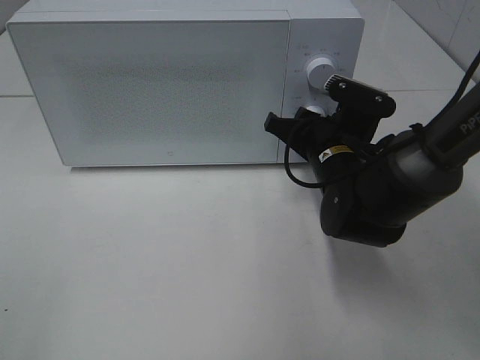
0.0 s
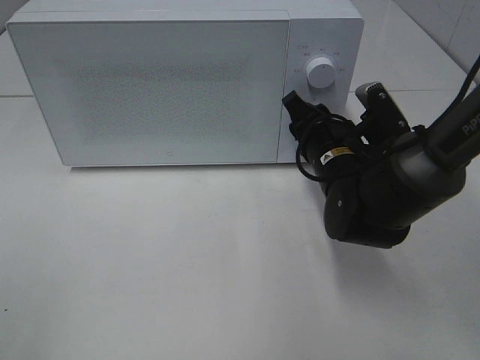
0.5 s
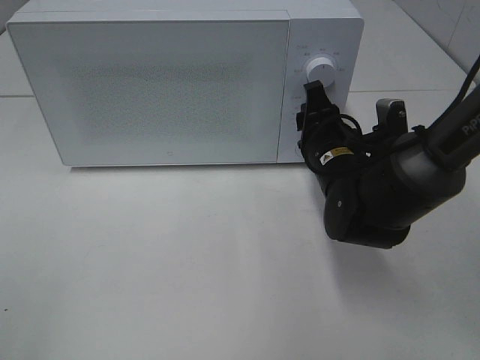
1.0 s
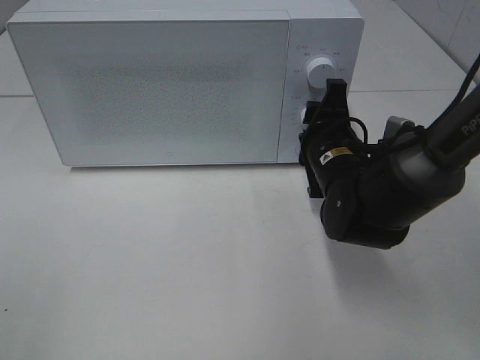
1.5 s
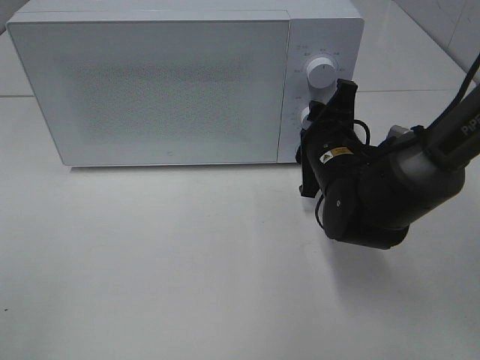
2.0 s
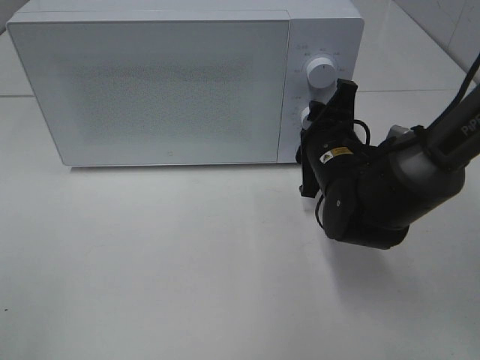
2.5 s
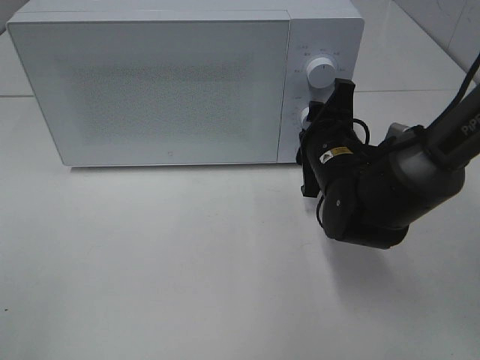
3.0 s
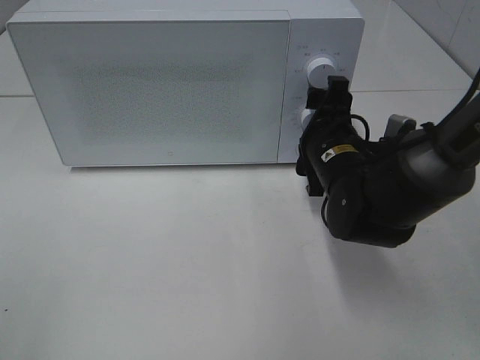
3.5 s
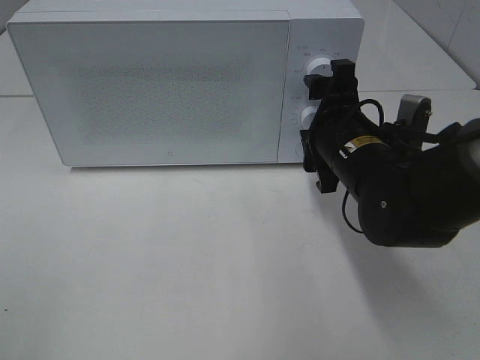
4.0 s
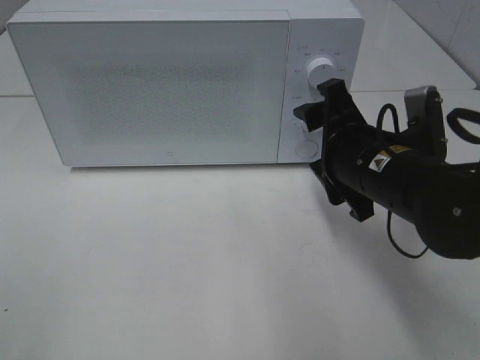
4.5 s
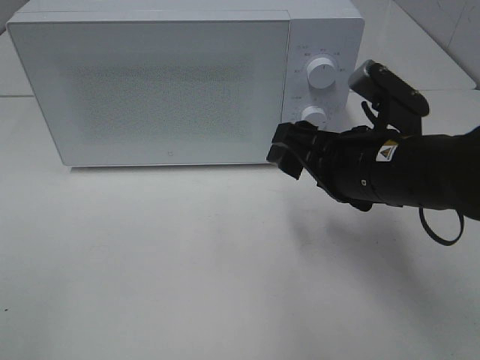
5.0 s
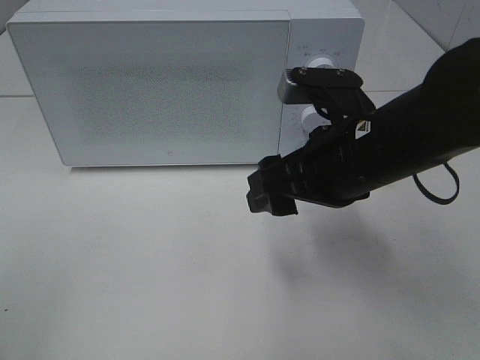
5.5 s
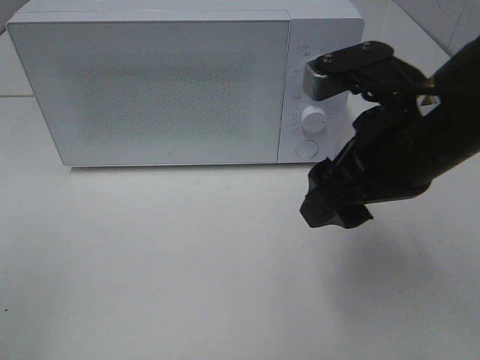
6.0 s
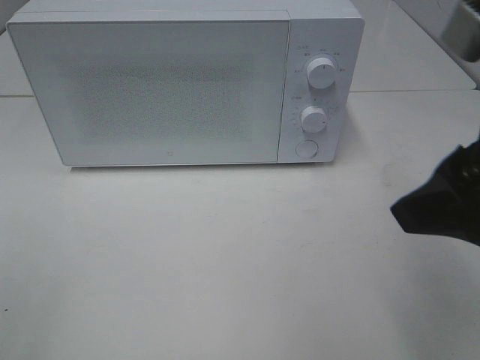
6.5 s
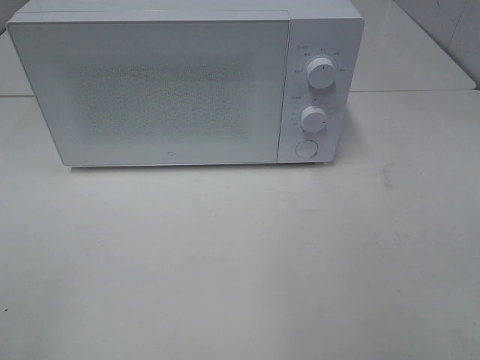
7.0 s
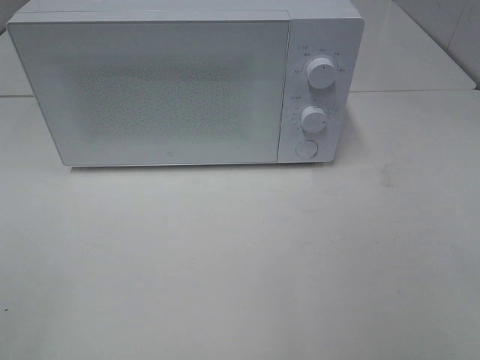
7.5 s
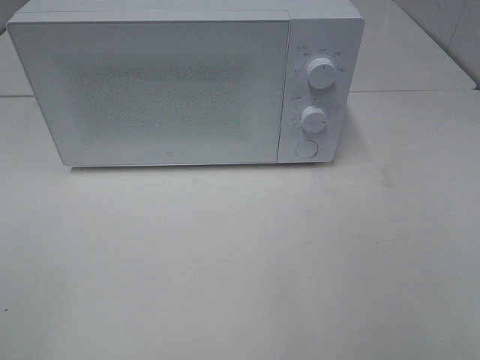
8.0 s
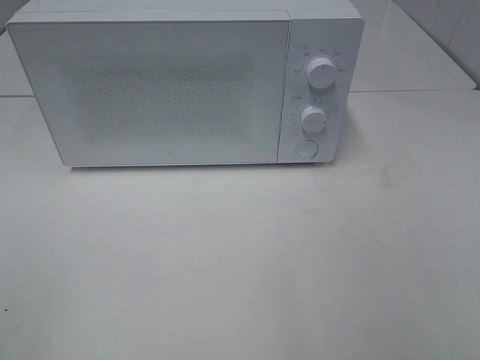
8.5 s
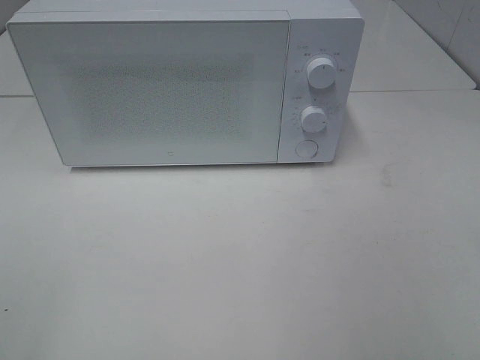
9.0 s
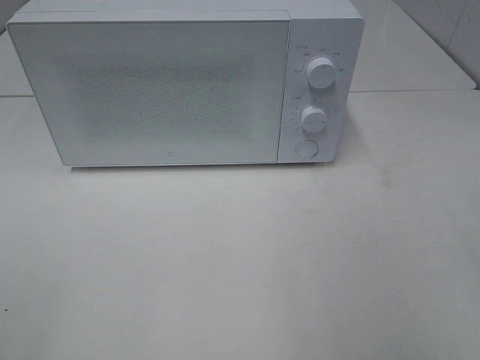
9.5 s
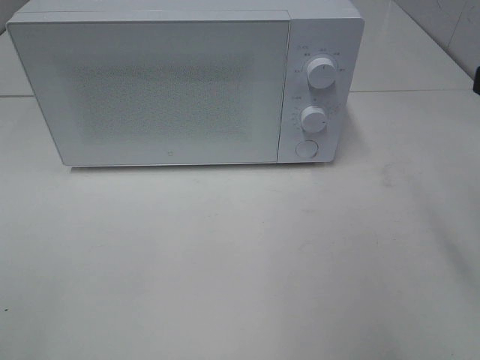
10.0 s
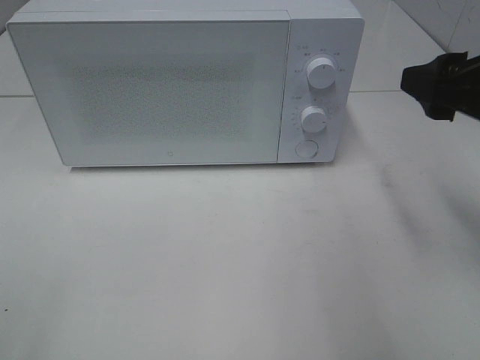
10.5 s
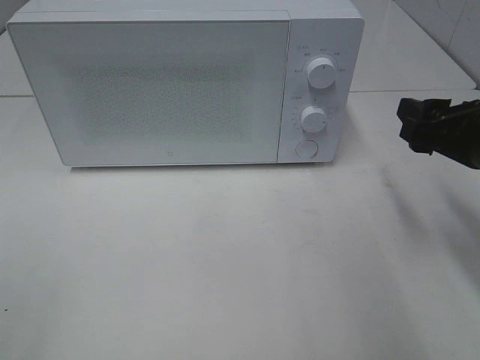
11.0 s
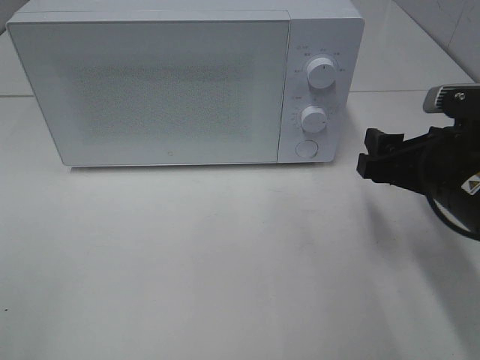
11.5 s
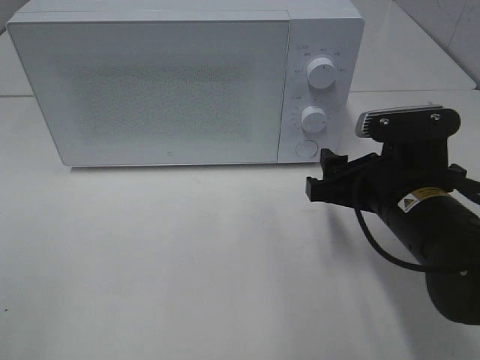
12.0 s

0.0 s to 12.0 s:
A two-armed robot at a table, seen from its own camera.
Task of the whole recording: Heat the burger.
Step, 0.0 to 3.5 s: Right hand: twist timer button.
2.0 to 4.0 s: The right gripper opens.
4.0 to 6.0 s: The right gripper heads upward and backward, covering roughly 15 cm.
6.0 to 8.0 s: The right gripper goes roughly 25 cm backward and to the right.
10.0 to 12.0 s: The right gripper travels downward, to the left and forward by roughly 20 cm.

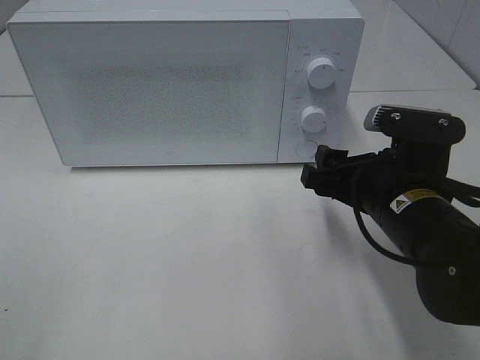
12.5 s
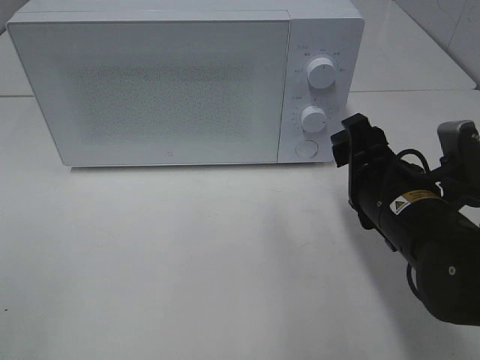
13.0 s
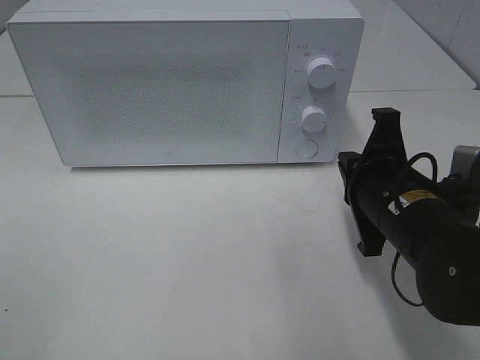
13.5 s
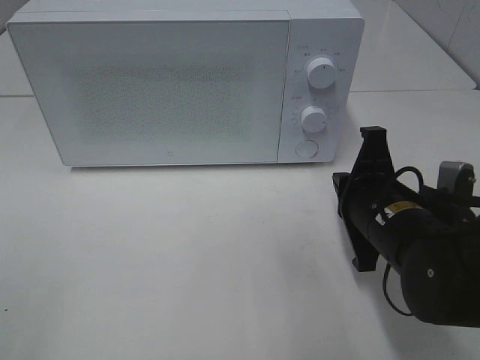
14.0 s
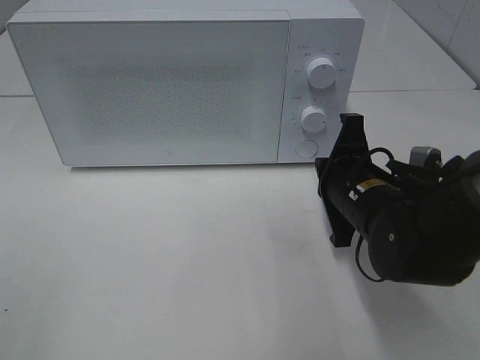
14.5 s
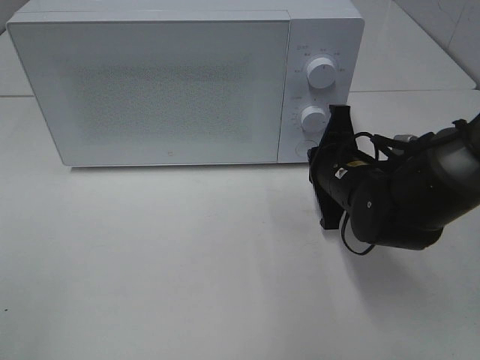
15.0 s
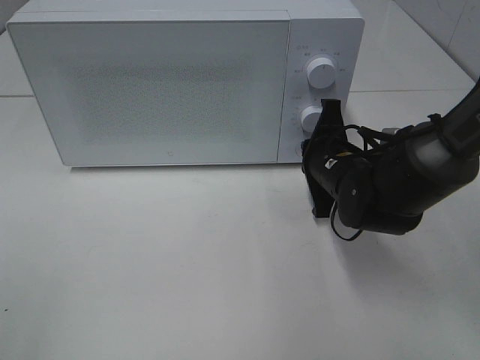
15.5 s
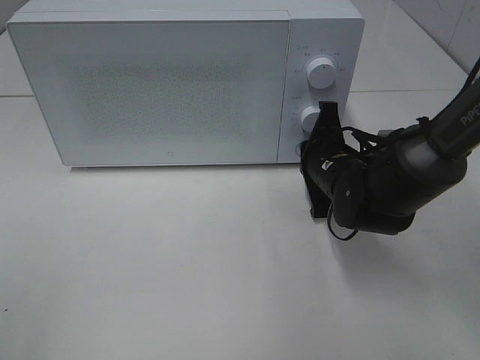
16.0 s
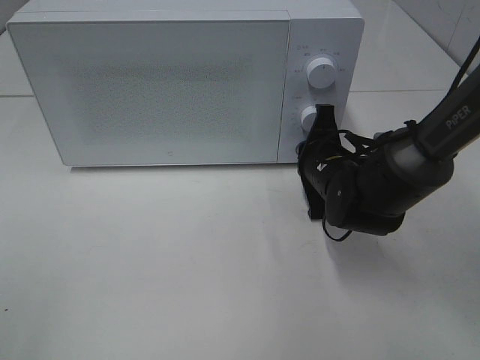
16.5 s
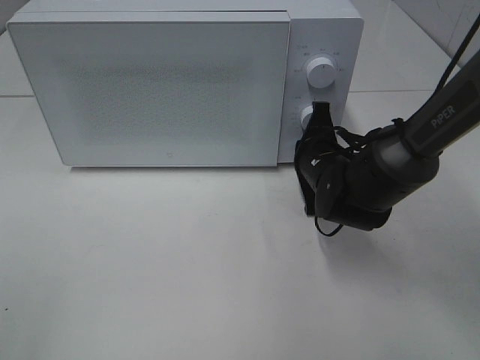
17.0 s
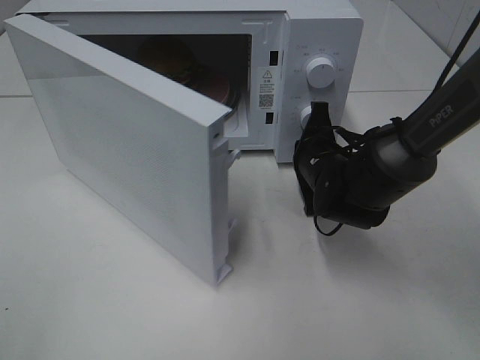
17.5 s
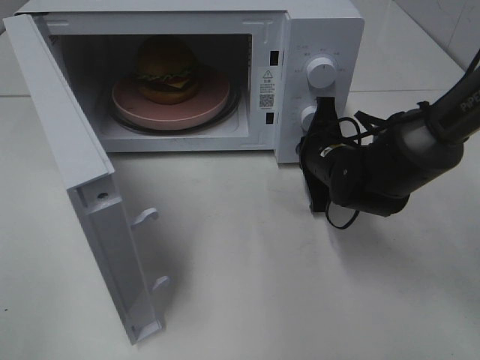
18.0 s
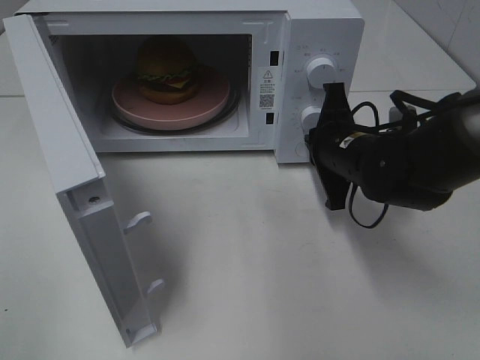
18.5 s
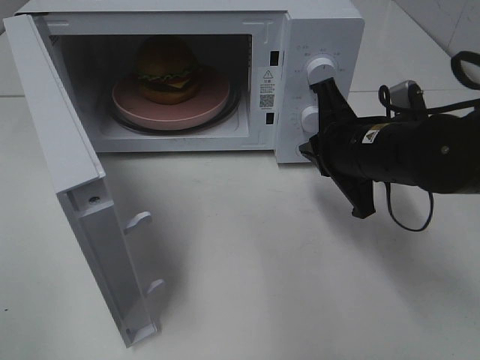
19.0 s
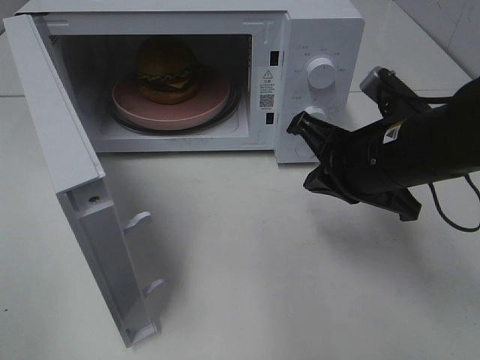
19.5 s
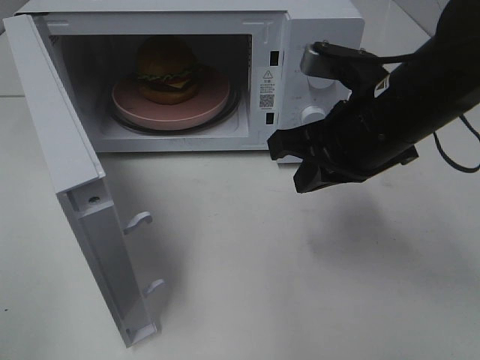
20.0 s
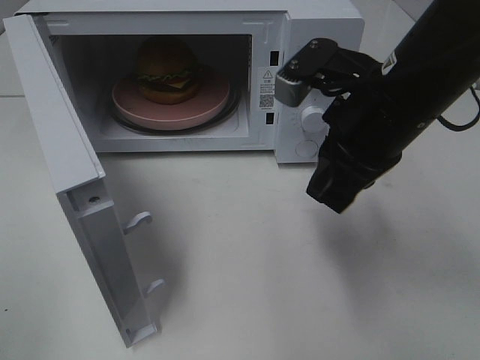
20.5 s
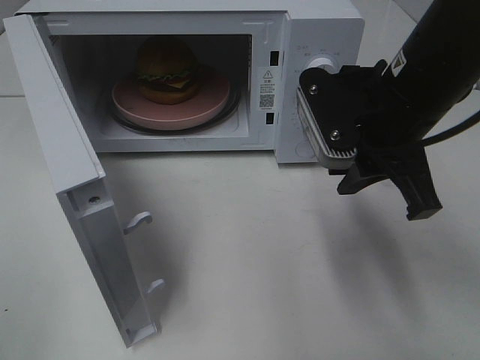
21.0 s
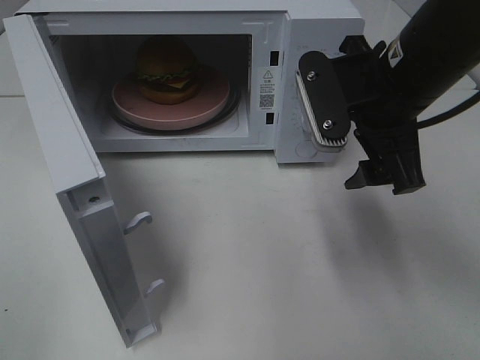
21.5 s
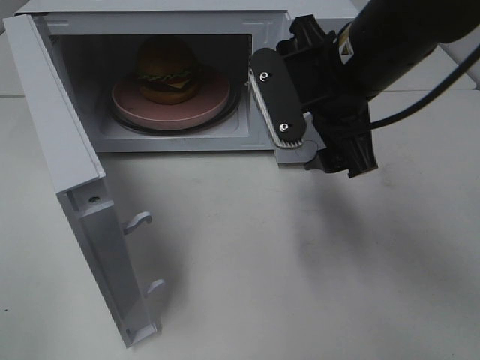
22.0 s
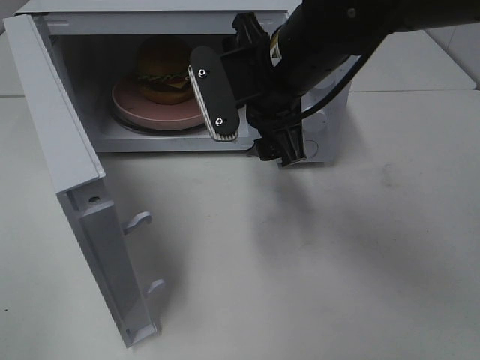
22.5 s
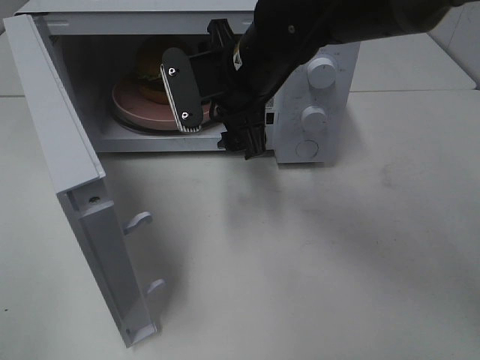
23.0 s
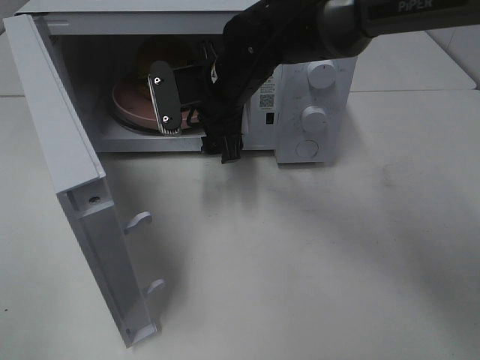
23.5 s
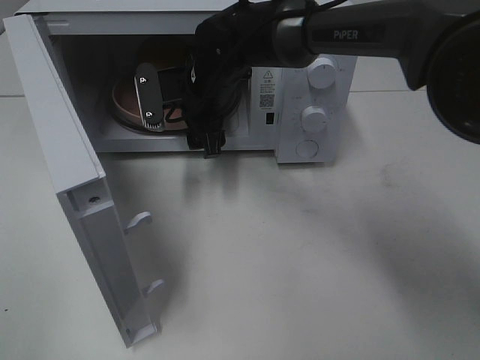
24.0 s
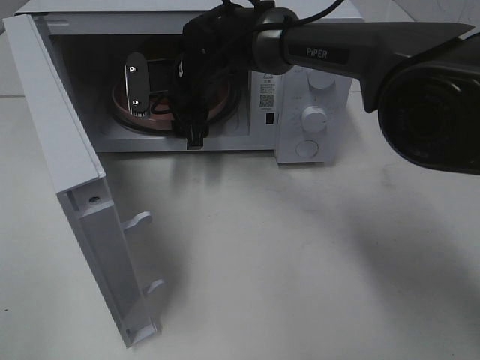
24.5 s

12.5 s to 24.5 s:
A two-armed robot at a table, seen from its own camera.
Task of the whole recording: Heat the burger.
Step, 12.5 to 18.5 s: Right hand: press the switch.
12.5 to 14.5 s: The right gripper moves roughly 5 cm, and closes up.
14.5 to 16.5 s: The right gripper travels forward by some 10 cm.
16.5 to 18.5 s: The right gripper moves approximately 5 cm.
18.5 to 20.5 s: The right gripper goes roughly 15 cm upward and backward.
20.5 to 22.5 s: The right gripper goes about 10 cm to the left and forward, and opens up.
22.5 to 24.5 s: The right gripper heads forward, to the left and downward, covering about 20 cm.

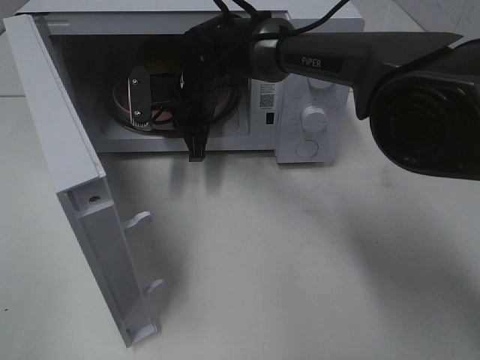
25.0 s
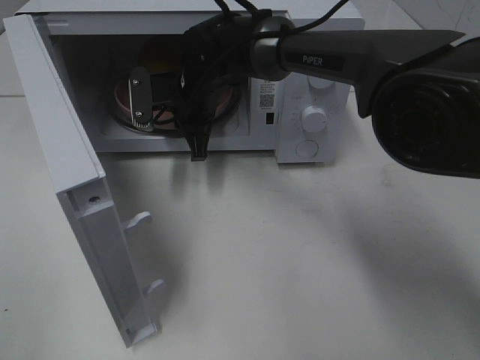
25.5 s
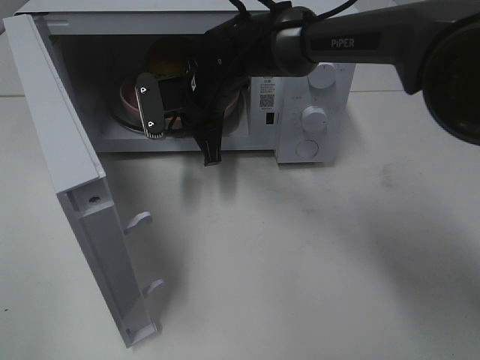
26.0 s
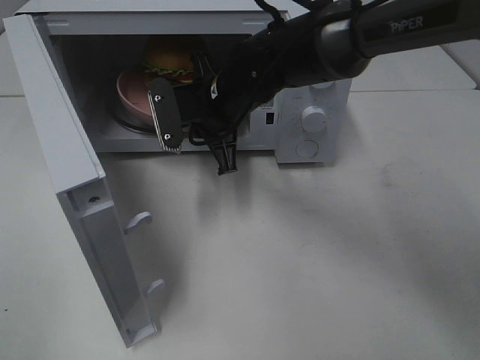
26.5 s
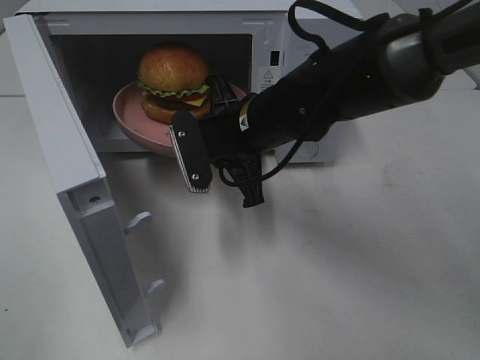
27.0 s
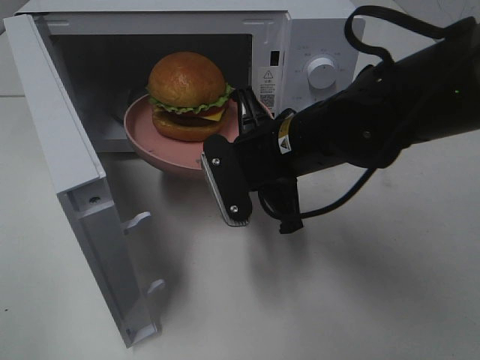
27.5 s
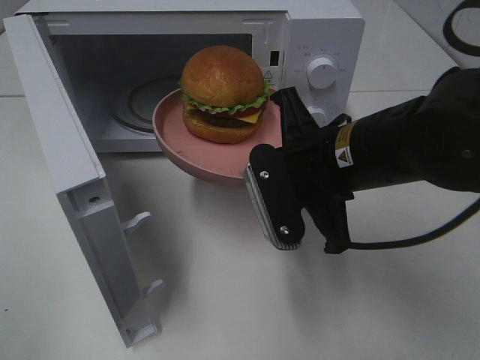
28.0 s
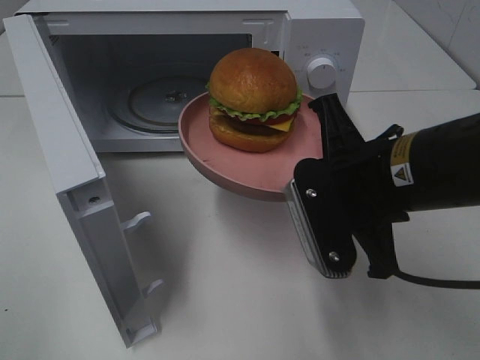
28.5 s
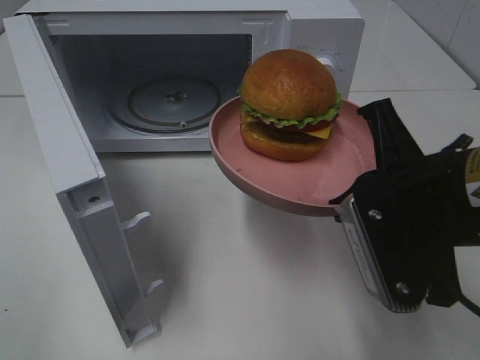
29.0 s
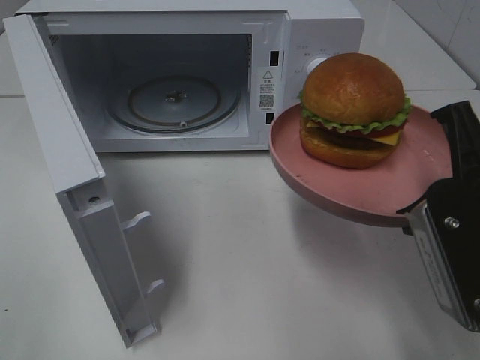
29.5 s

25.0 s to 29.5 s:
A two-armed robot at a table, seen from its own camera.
Task of the whole recording: Heat the burger.
25.0 to 27.0 s: The right gripper travels backward and to the right by about 15 cm.
27.0 to 29.5 s: The right gripper is displaced backward and to the right by some 25 cm.
